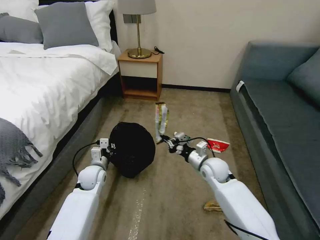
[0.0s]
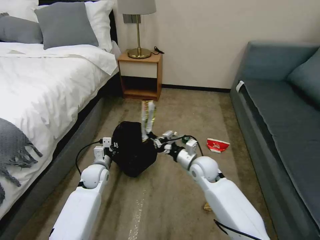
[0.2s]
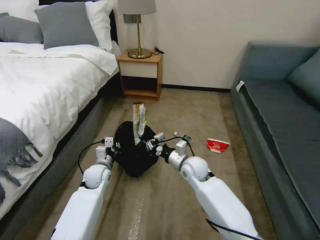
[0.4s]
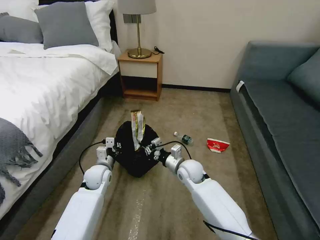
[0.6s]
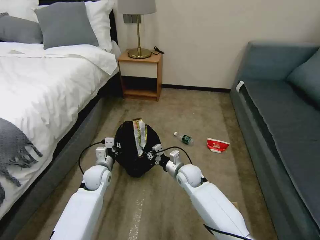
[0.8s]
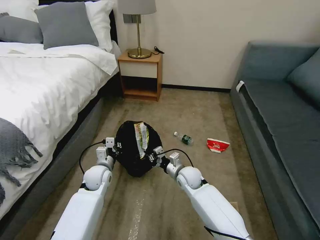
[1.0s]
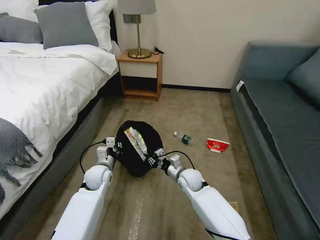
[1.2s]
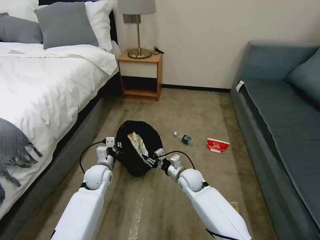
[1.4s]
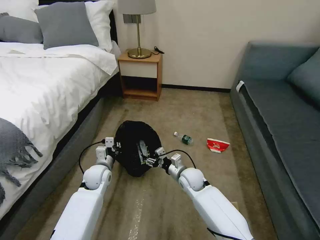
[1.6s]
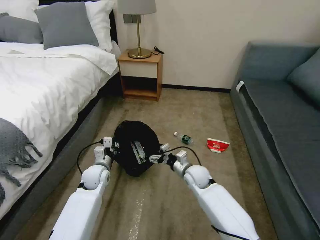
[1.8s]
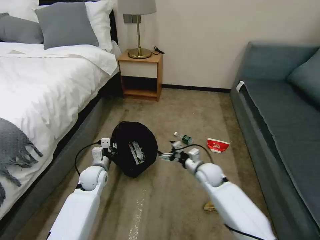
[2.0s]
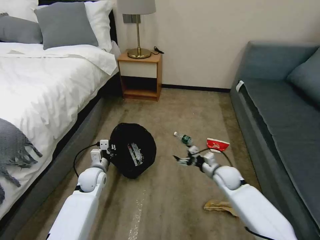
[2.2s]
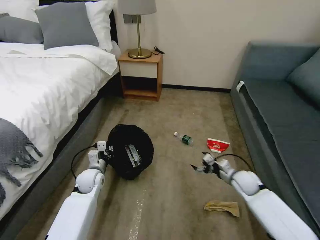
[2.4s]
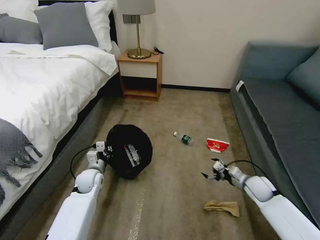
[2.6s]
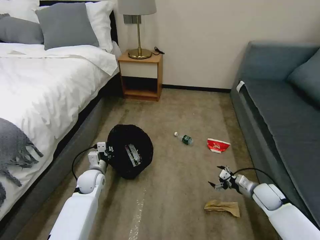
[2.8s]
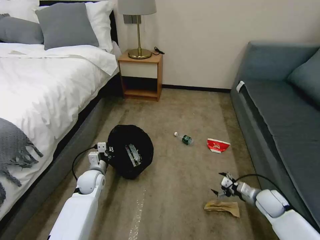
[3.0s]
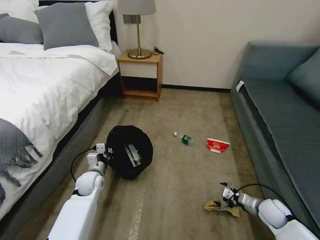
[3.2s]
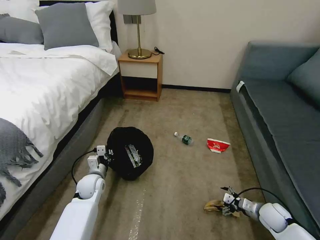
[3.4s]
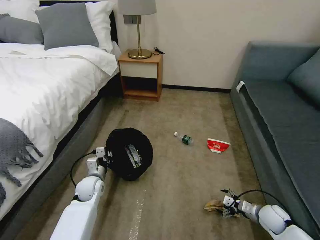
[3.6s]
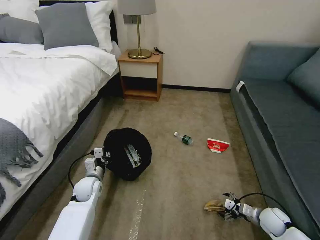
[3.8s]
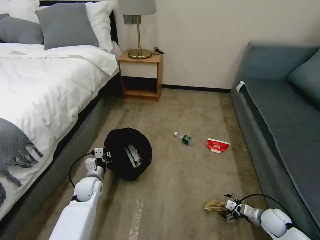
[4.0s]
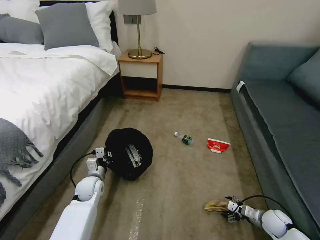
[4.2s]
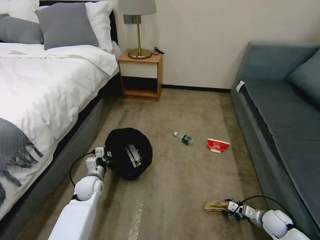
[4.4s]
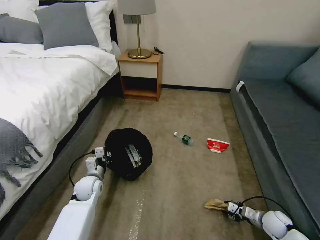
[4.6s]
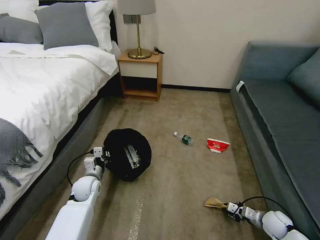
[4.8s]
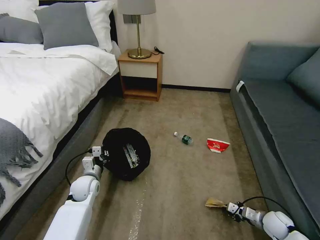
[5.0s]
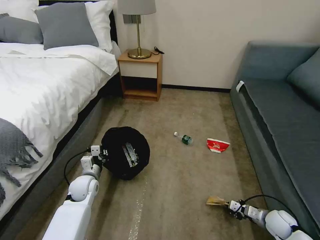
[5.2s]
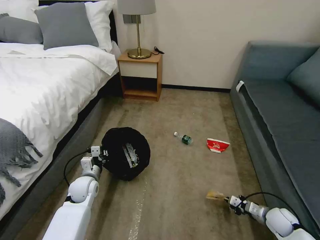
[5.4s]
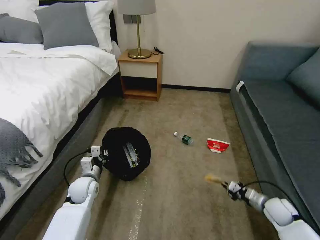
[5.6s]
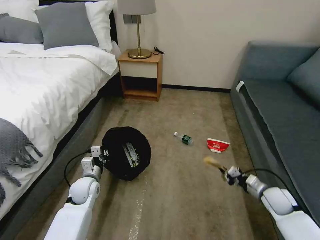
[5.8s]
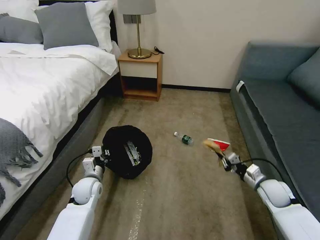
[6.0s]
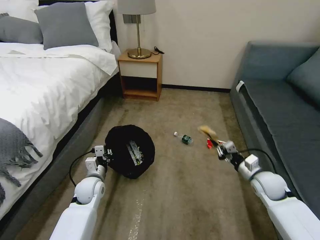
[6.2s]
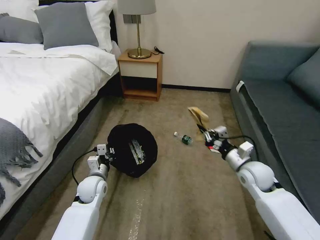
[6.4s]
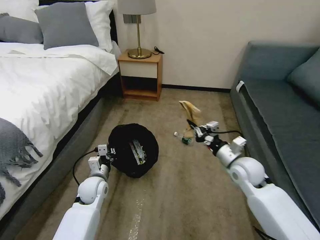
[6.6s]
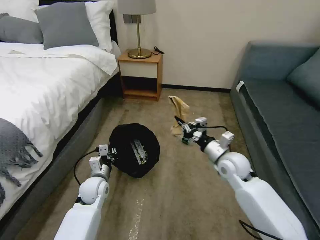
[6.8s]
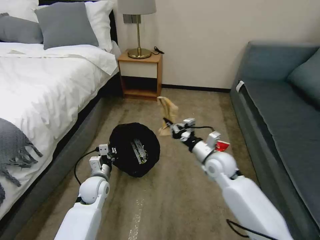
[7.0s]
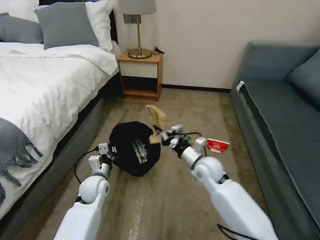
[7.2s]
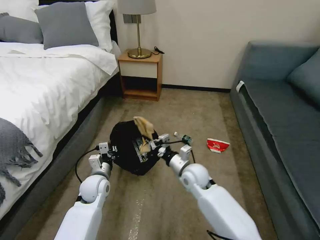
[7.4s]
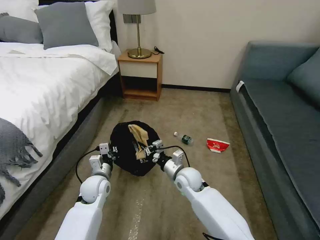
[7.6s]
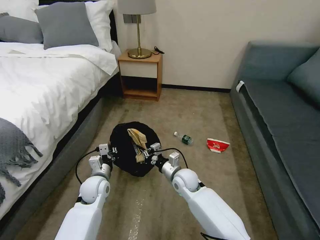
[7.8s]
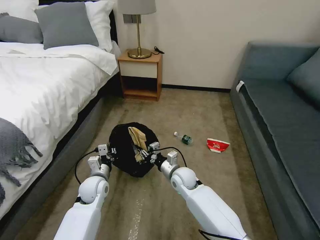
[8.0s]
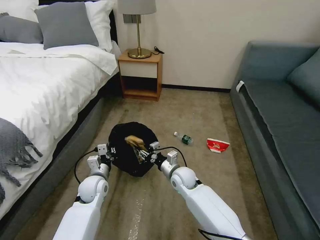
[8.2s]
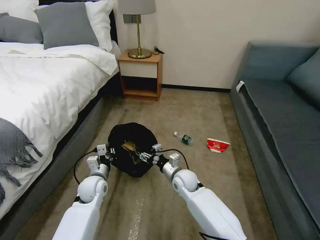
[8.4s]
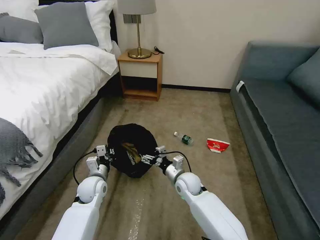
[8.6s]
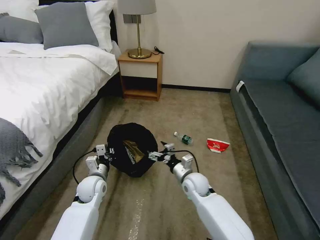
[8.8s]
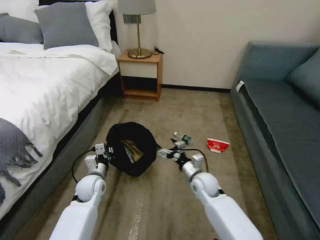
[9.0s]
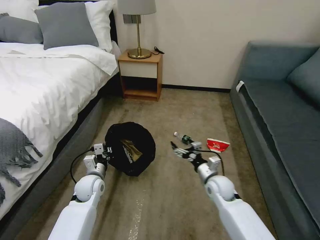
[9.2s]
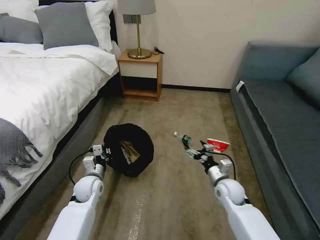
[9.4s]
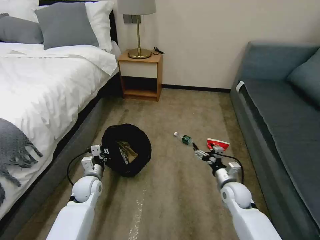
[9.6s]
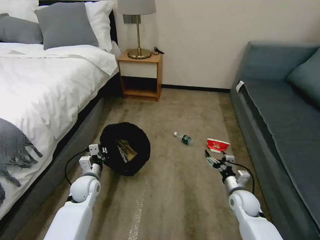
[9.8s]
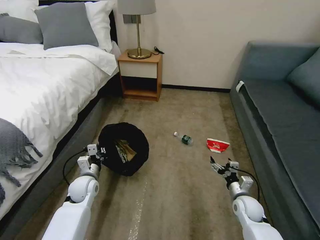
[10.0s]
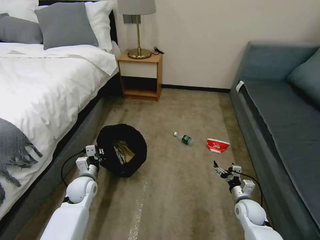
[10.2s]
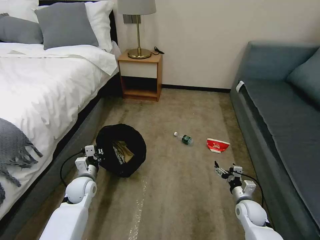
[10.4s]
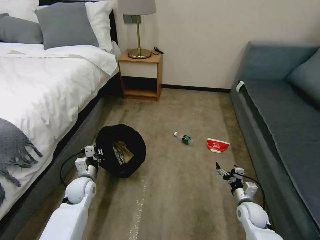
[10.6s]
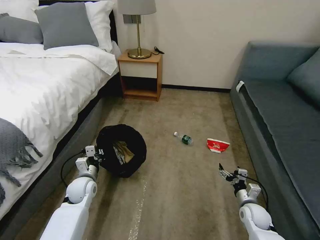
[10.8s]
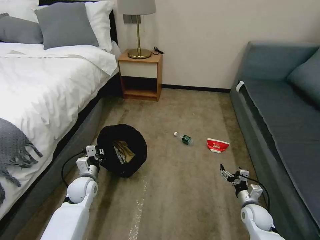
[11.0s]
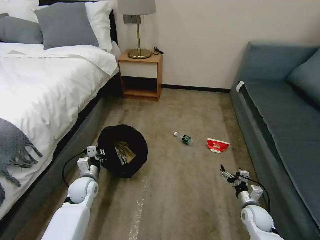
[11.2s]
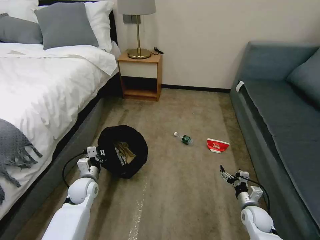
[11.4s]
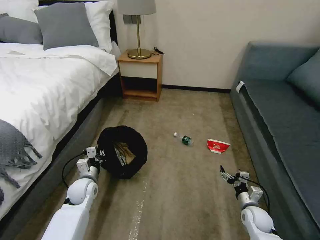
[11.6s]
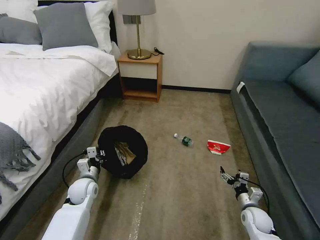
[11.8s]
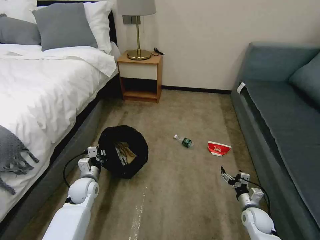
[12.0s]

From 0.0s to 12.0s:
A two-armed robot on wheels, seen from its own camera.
Task of the whole recording: Pick up the trash bin, then pick up the garbage on the floor and place it into the trash bin.
From 0.0s to 1.6s: The right gripper goes about 10 cm to the left and downward, and opens up.
From 1.6s to 3.0s: The right gripper shifts approximately 30 cm to the right, and opens its fingers.
From 3.0s to 4.4s: The right gripper travels downward and backward by some 10 cm.
From 4.4s to 6.0s: The right gripper shifts approximately 15 cm upward and forward, and closes up.
From 6.0s to 7.6s: The right gripper moves to the left, about 30 cm.
From 7.6s to 9.0s: The right gripper moves to the right, some 5 cm, and opens.
From 9.0s to 10.4s: The right gripper moves to the right, downward and backward, approximately 20 cm.
From 10.4s to 12.0s: The grippers move only a little.

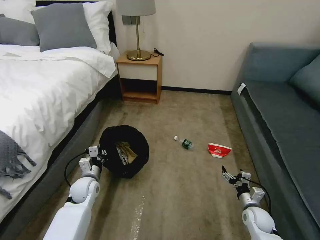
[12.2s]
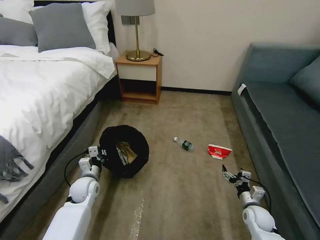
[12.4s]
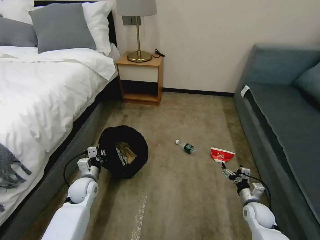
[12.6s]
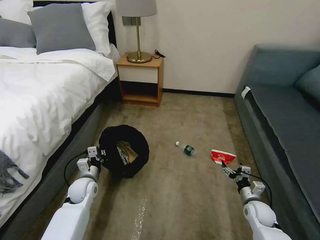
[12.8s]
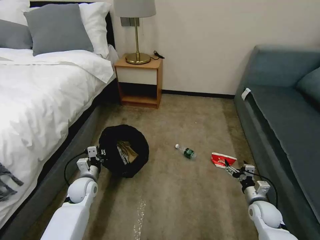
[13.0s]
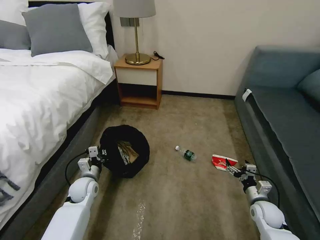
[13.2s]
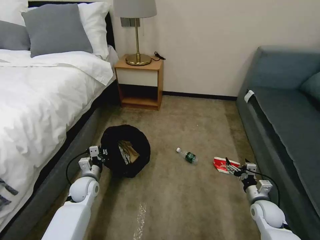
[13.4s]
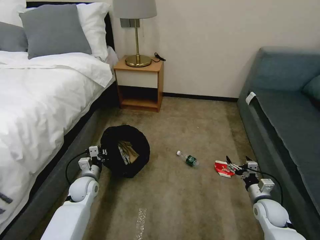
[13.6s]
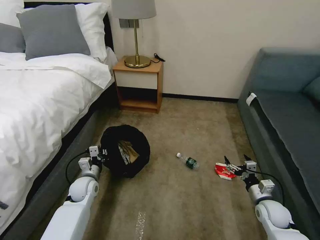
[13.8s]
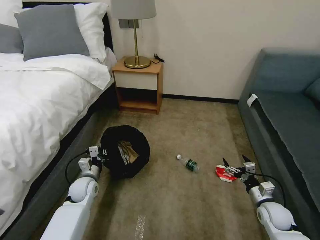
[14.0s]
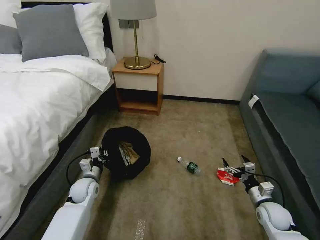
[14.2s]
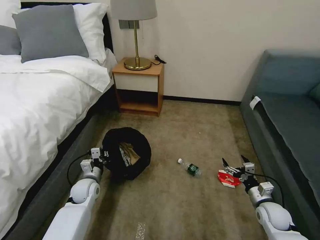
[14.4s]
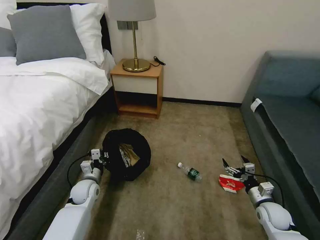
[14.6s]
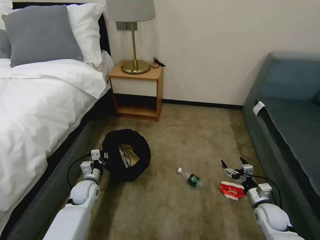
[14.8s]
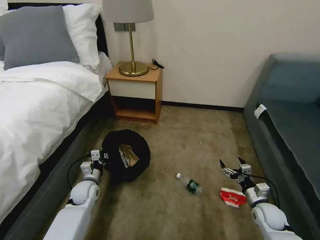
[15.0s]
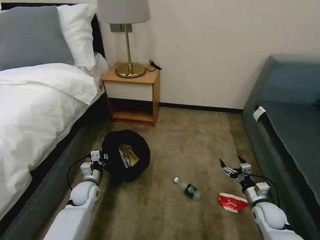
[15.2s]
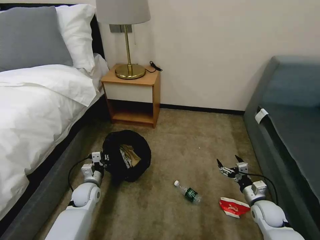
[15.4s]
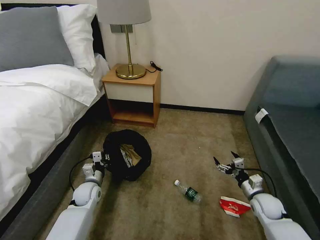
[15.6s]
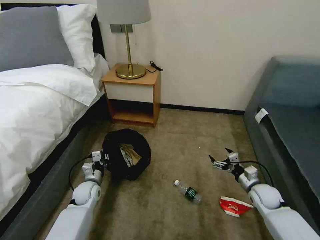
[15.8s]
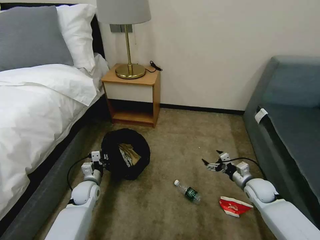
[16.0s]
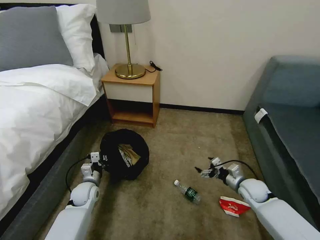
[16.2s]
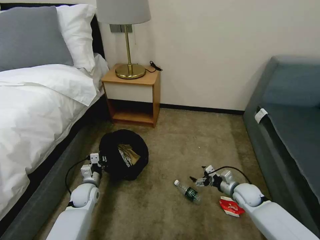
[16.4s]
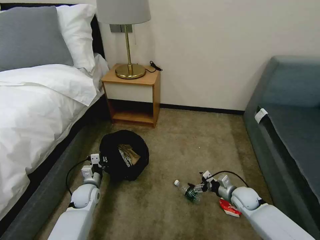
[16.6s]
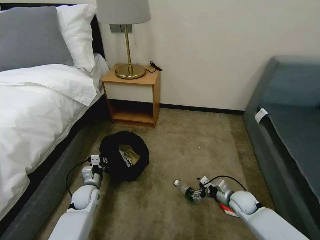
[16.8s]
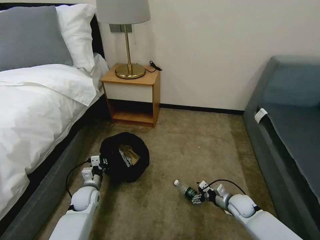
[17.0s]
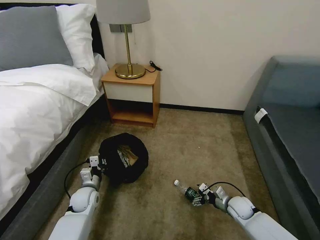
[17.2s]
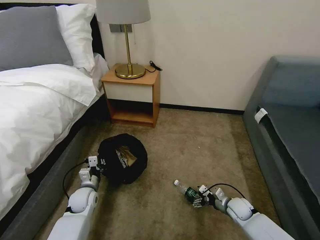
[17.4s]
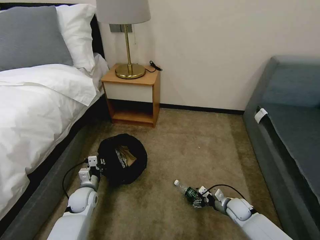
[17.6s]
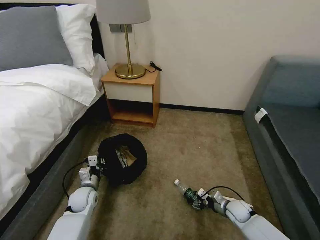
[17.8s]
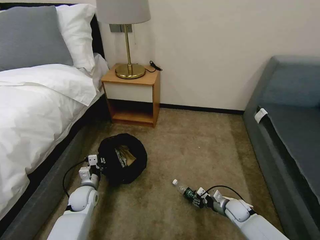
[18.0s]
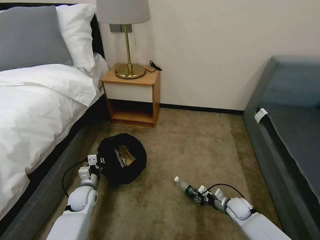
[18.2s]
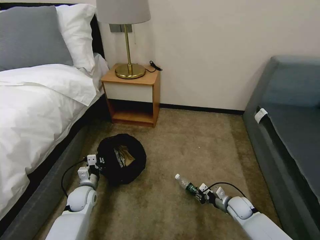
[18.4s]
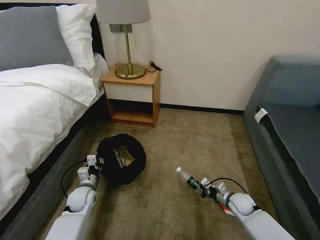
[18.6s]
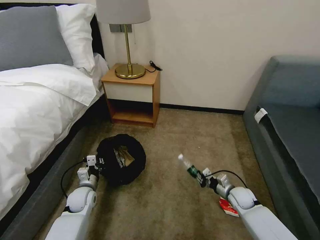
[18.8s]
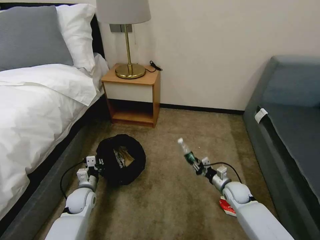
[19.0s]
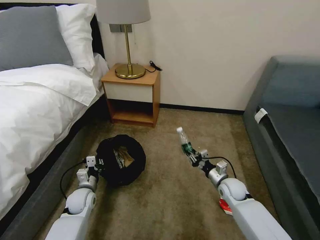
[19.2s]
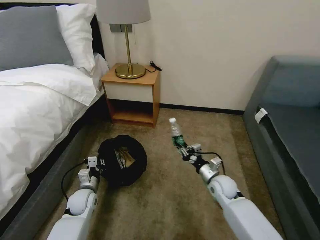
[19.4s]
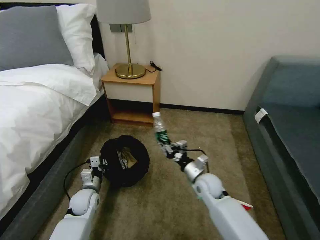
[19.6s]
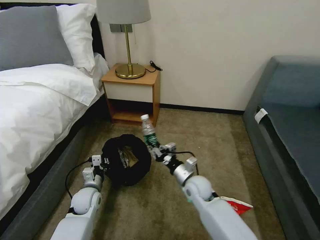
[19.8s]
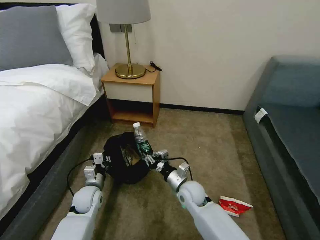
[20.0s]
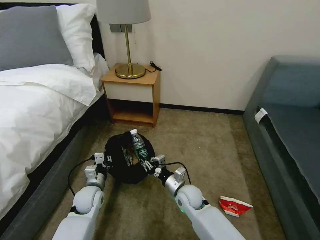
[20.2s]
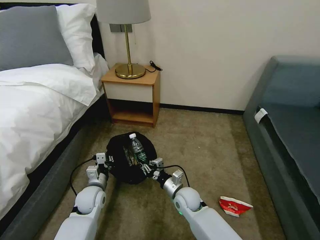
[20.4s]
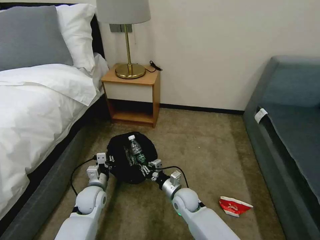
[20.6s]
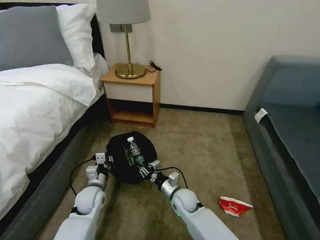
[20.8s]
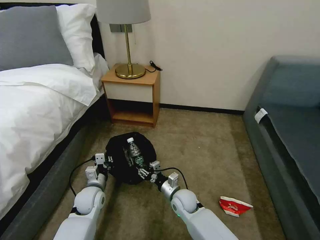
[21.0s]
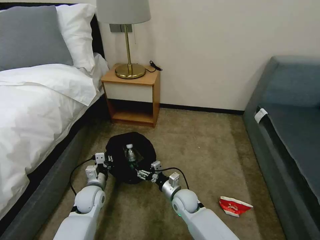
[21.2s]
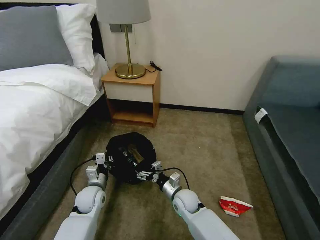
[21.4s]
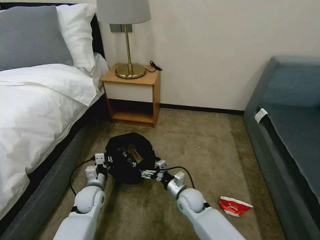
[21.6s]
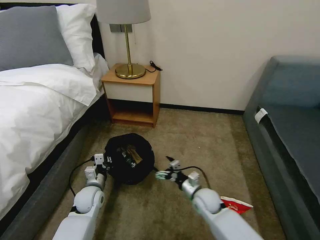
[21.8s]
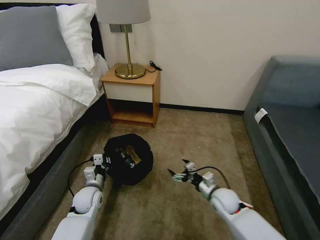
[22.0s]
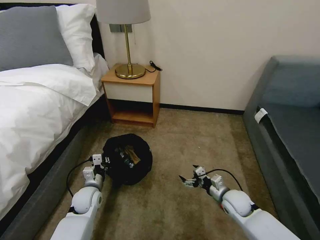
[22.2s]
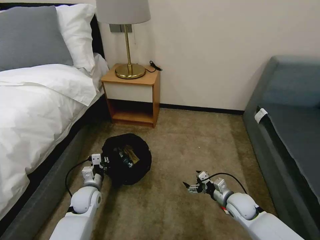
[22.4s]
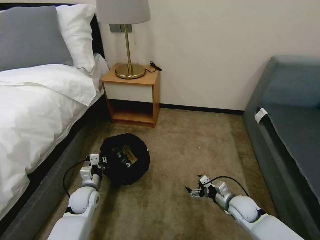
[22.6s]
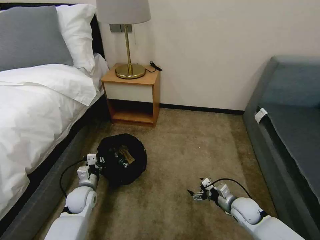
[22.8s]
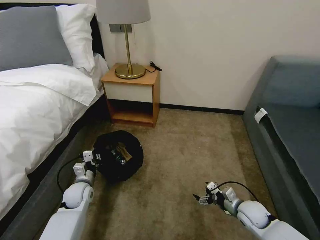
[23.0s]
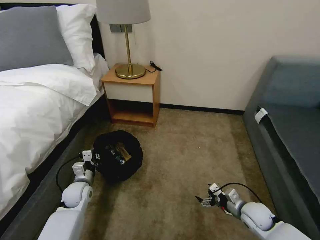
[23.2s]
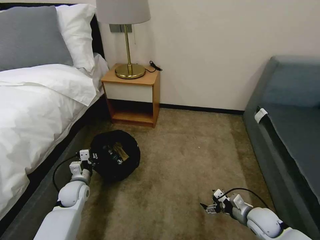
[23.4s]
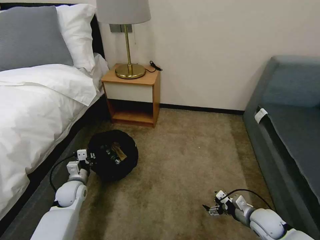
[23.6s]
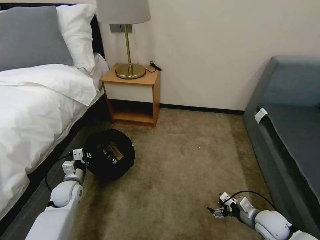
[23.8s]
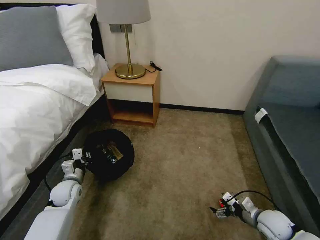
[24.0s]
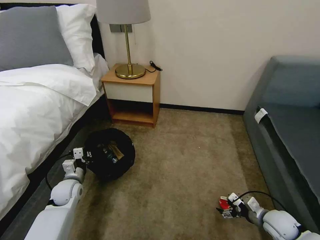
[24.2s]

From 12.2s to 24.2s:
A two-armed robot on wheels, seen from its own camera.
Task of the whole recording: Pick up the trash bin, then pick up the garbage on the floor and place it into the trash bin.
From 12.2s to 13.8s: The right gripper heads upward, covering about 5 cm.
From 15.2s to 16.6s: The right gripper moves forward and to the left, about 10 cm.
From 16.6s to 18.2s: The right gripper goes roughly 5 cm downward, and closes its fingers.
From 18.2s to 19.8s: The right gripper goes some 25 cm to the left and upward.
From 19.8s to 21.2s: The right gripper moves downward, some 5 cm, and opens.
From 21.2s to 22.6s: The right gripper travels to the right by about 20 cm.
From 22.6s to 24.2s: The right gripper goes some 10 cm to the right and backward; the left gripper shifts roughly 5 cm to the left.
